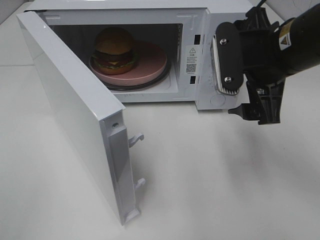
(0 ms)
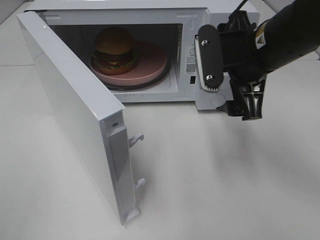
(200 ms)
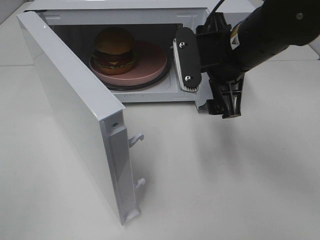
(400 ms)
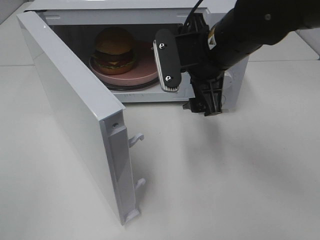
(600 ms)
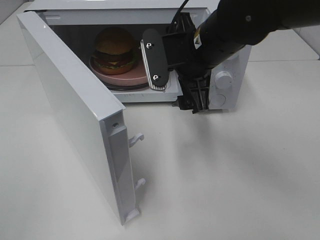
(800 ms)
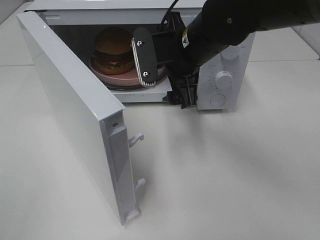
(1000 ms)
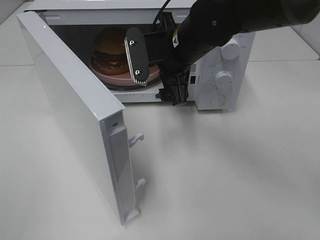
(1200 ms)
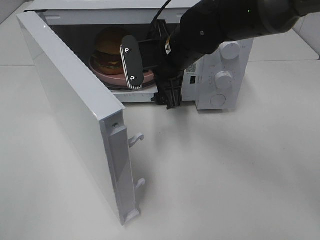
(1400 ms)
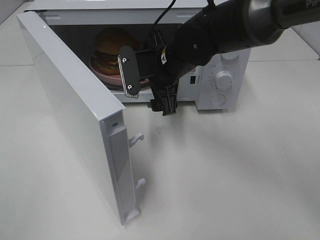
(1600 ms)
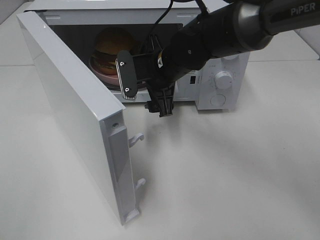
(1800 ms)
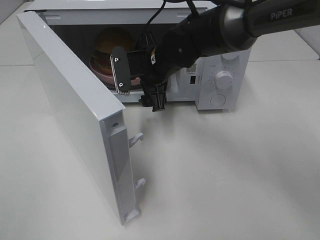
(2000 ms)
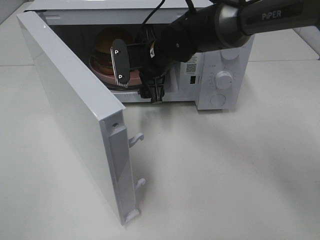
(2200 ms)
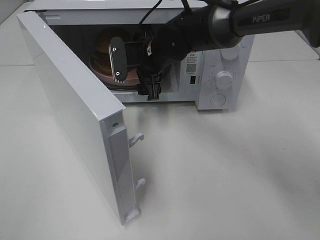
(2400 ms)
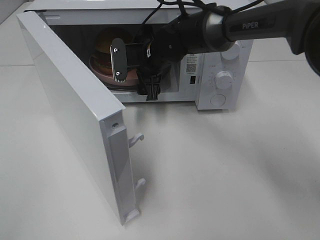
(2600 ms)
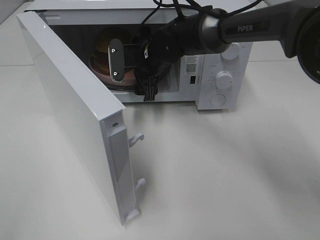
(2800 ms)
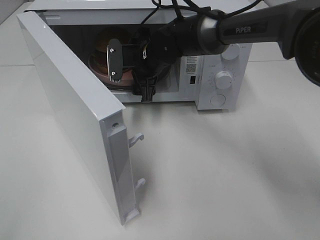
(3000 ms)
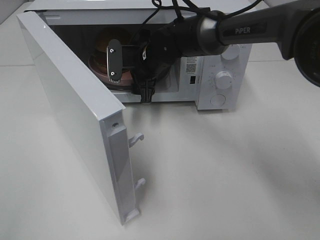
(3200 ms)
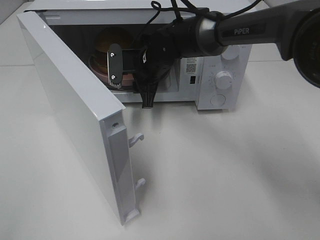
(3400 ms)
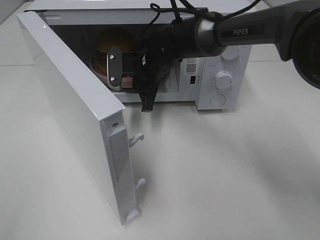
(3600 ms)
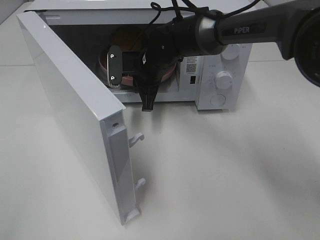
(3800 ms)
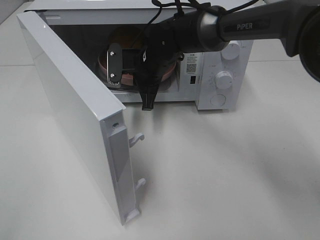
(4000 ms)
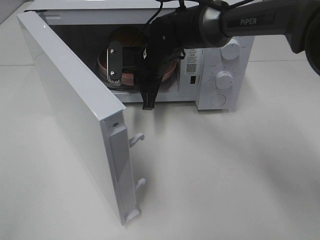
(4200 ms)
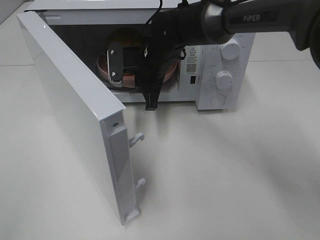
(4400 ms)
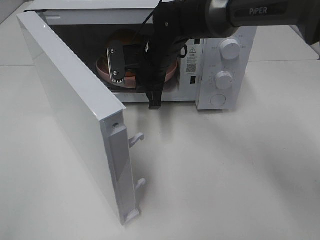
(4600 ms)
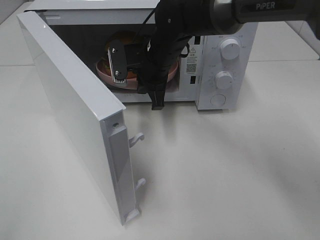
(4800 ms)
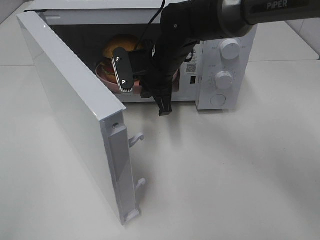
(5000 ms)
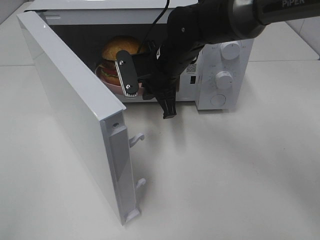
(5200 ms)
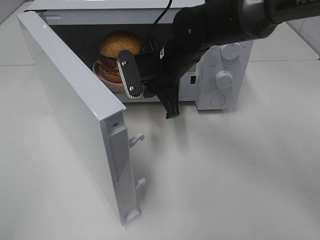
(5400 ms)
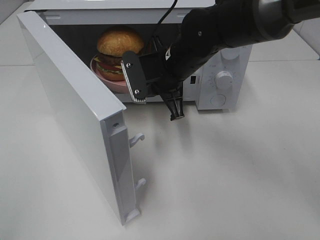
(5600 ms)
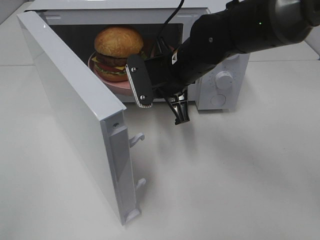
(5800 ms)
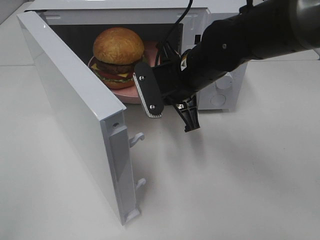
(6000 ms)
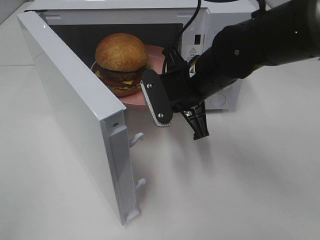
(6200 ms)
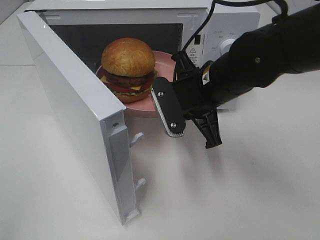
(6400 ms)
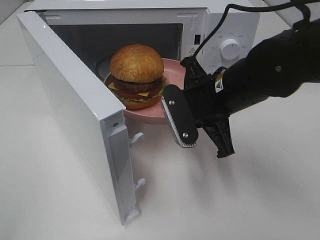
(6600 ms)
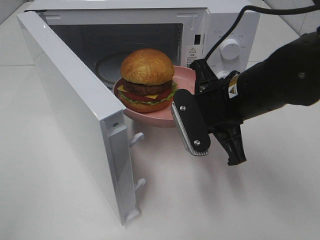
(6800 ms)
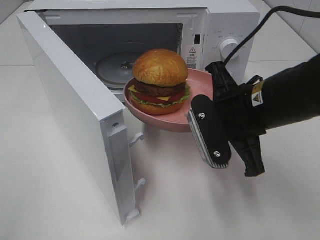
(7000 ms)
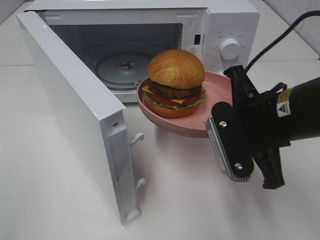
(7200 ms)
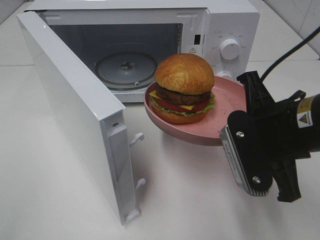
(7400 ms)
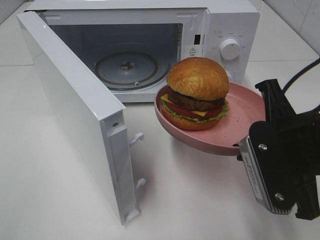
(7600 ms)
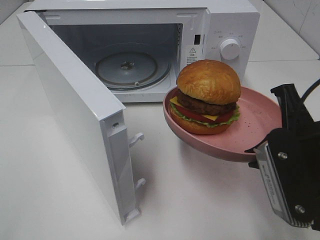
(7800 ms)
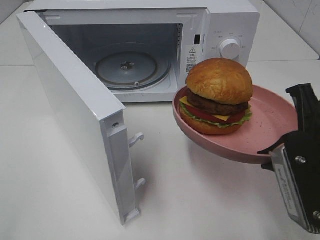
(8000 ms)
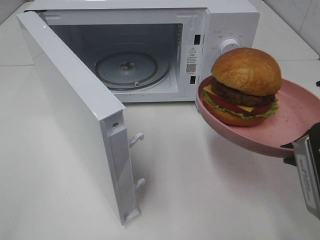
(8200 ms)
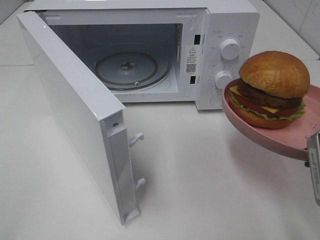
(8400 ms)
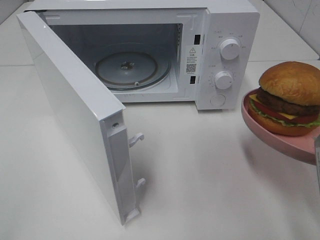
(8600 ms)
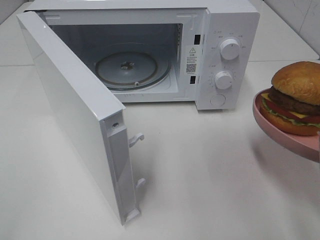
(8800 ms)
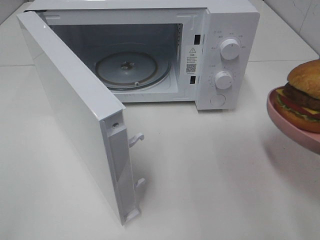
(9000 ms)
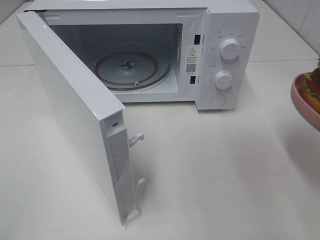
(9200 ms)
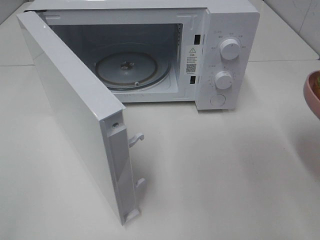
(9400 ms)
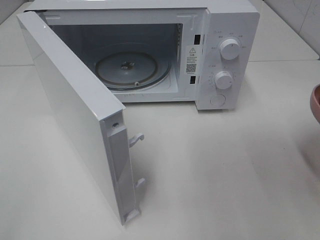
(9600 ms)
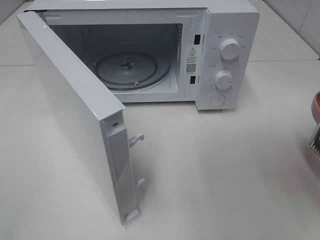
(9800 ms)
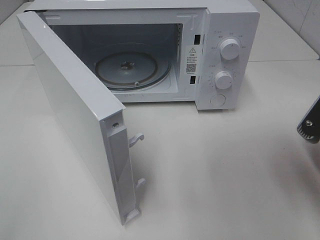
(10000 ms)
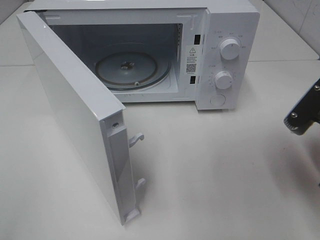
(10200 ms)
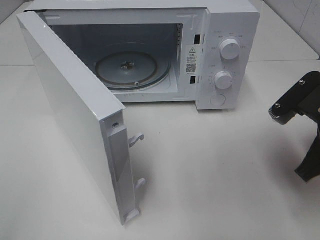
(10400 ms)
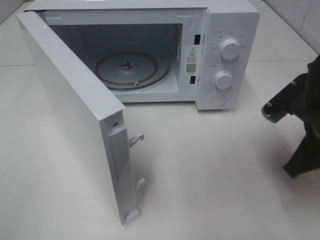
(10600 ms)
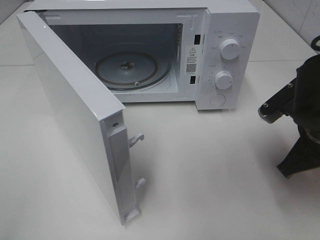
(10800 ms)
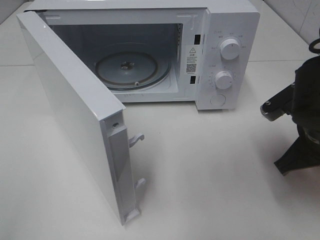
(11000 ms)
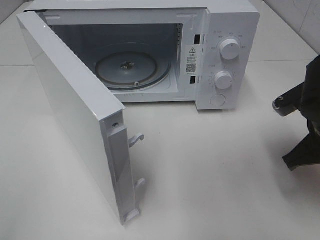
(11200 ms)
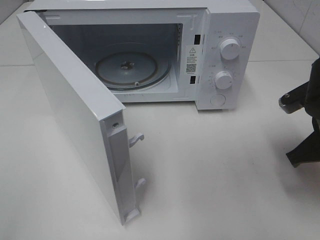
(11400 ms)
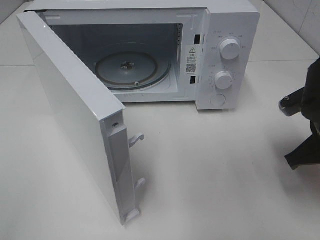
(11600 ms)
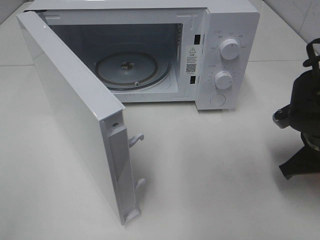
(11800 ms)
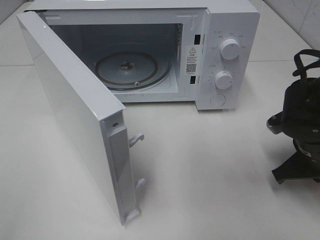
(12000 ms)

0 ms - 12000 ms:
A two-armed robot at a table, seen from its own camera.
Task of the whole recording: Heat the burger.
Step, 0 ms - 3800 ms: Right hand: grab the plate with the hamburger.
0 ms - 1600 ms: The right gripper moves to the left, forward and downward, roughly 20 cm.
1600 ms - 3000 ms: The right gripper is displaced forward by about 5 cm.
3000 ms - 4400 ms: The right gripper closes.
4400 ms - 6000 ms: The right gripper goes approximately 10 cm backward and to the right.
6000 ms - 7600 ms: The right gripper shifts some 20 cm backward and to the right.
7600 ms - 9000 ms: The right gripper heads to the right, covering some 5 cm.
9000 ms - 10400 ms: The right gripper goes approximately 10 cm forward.
10400 ms - 12000 ms: The right gripper is displaced downward by approximately 10 cm.

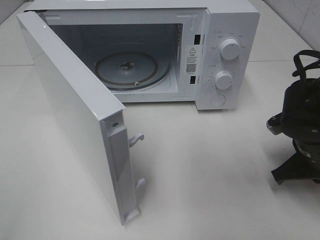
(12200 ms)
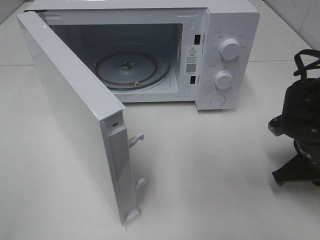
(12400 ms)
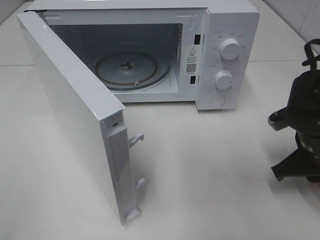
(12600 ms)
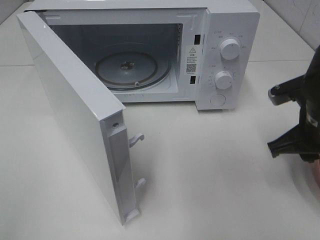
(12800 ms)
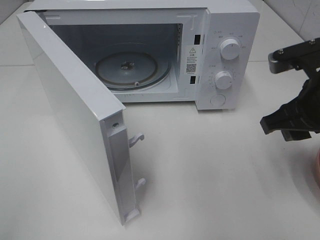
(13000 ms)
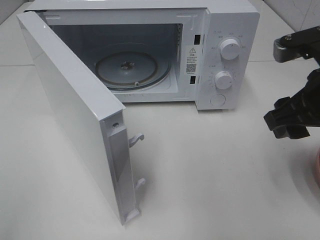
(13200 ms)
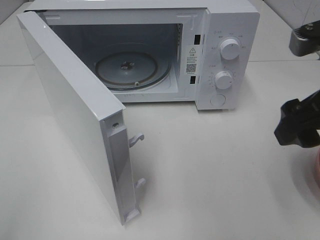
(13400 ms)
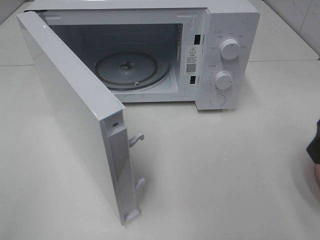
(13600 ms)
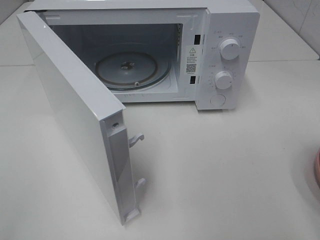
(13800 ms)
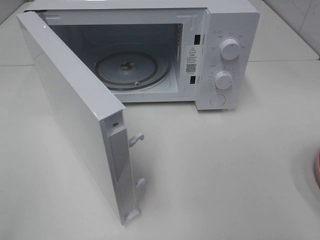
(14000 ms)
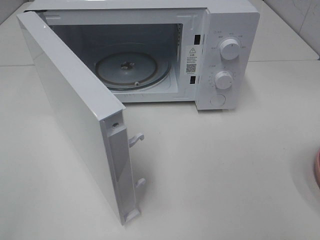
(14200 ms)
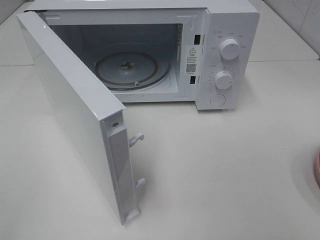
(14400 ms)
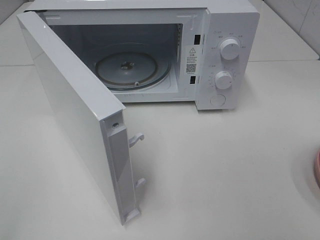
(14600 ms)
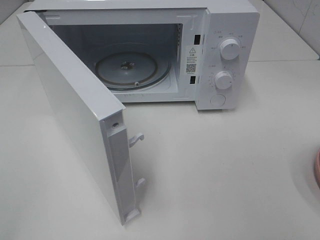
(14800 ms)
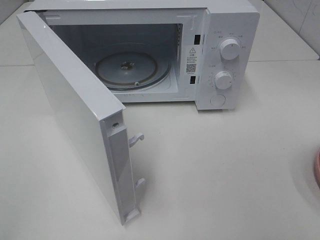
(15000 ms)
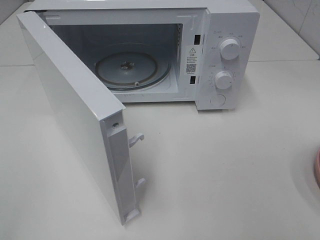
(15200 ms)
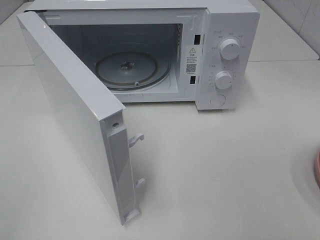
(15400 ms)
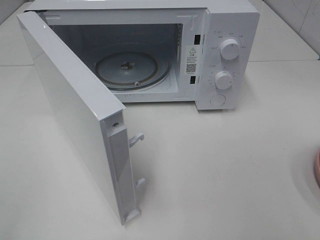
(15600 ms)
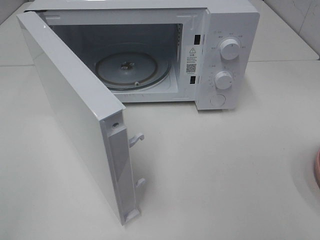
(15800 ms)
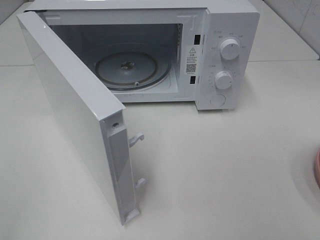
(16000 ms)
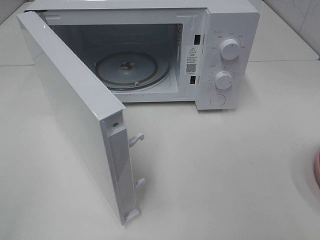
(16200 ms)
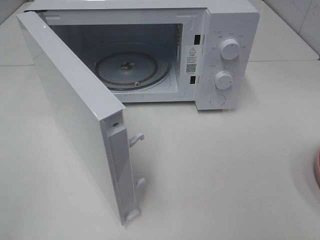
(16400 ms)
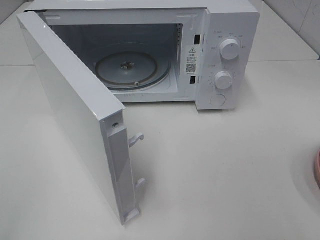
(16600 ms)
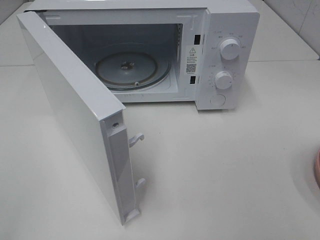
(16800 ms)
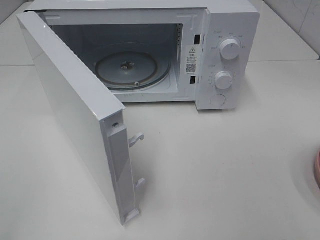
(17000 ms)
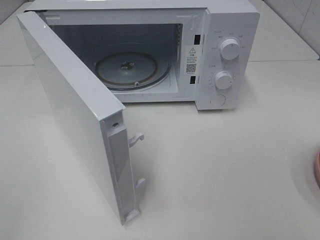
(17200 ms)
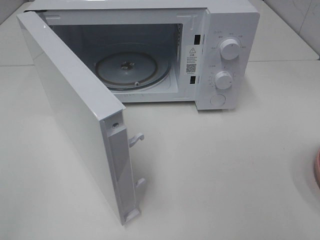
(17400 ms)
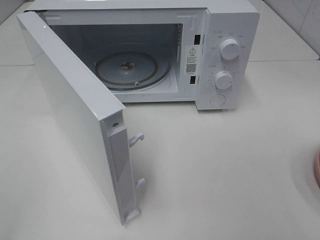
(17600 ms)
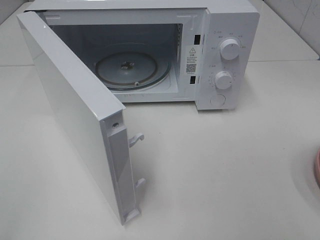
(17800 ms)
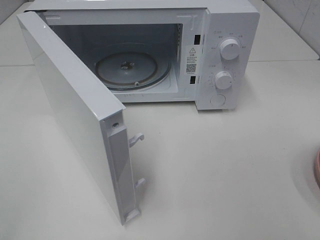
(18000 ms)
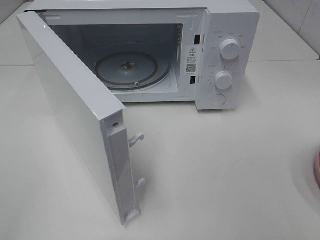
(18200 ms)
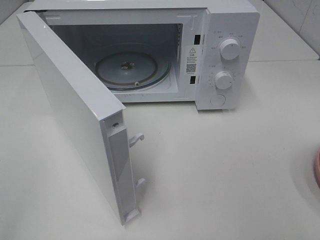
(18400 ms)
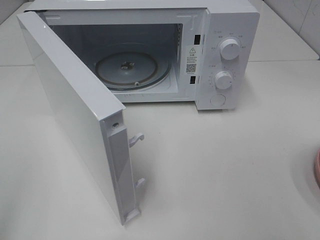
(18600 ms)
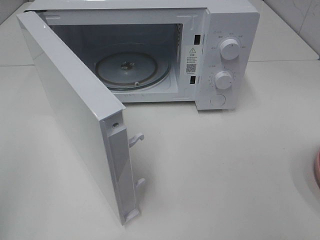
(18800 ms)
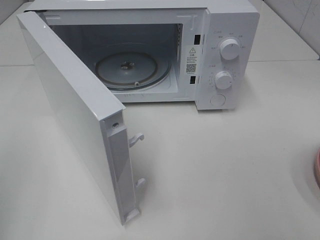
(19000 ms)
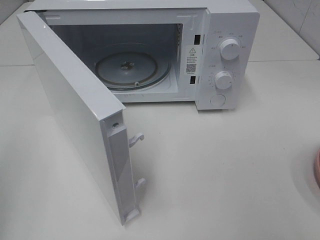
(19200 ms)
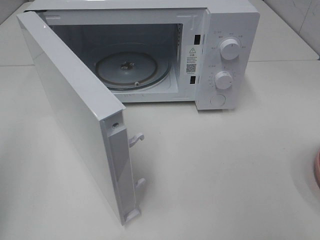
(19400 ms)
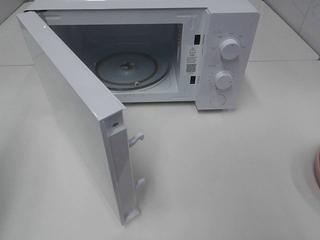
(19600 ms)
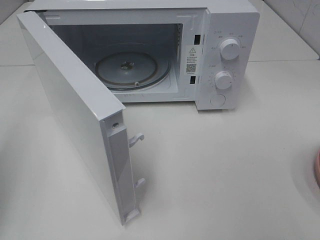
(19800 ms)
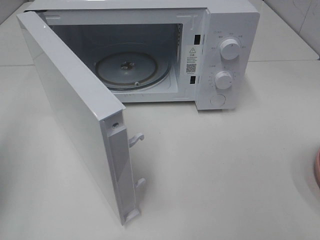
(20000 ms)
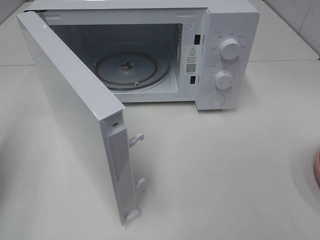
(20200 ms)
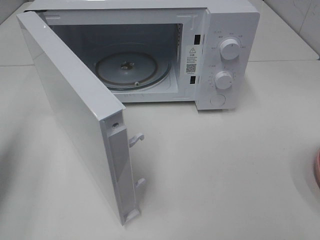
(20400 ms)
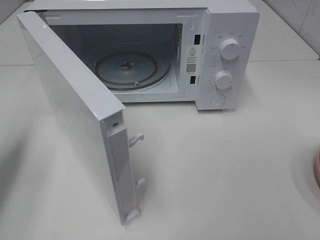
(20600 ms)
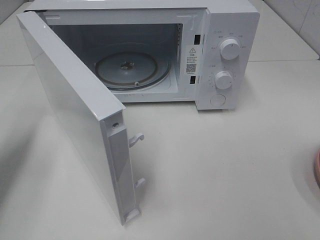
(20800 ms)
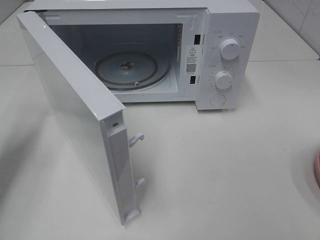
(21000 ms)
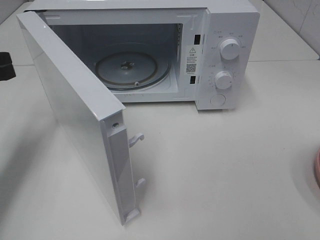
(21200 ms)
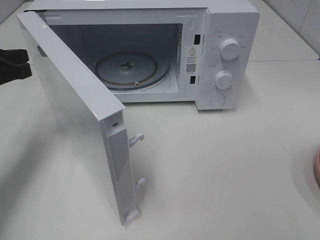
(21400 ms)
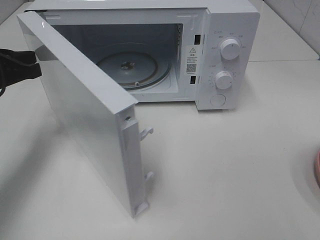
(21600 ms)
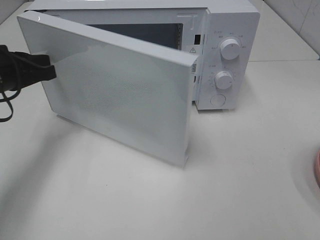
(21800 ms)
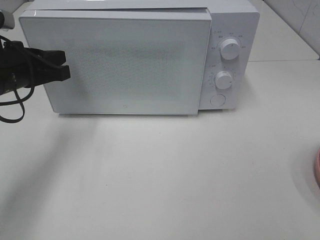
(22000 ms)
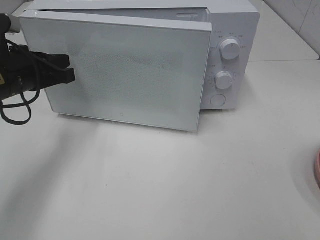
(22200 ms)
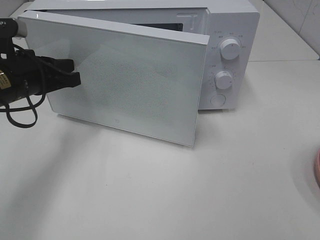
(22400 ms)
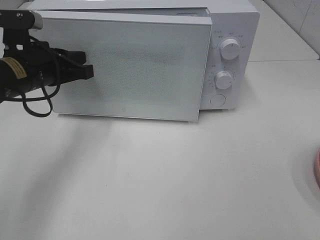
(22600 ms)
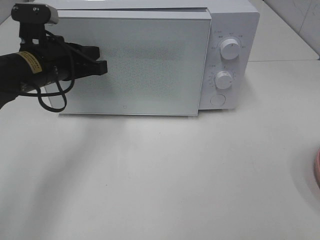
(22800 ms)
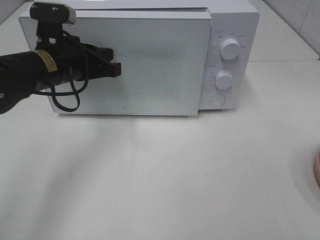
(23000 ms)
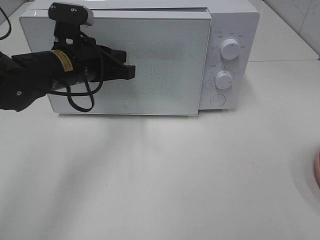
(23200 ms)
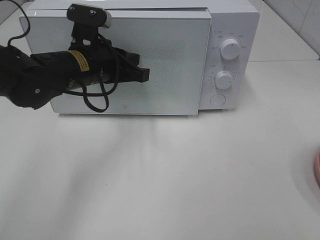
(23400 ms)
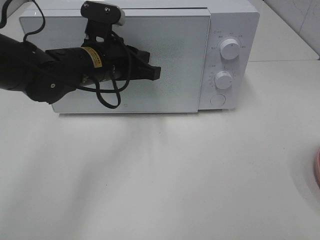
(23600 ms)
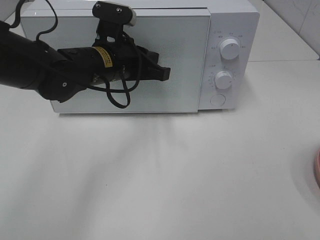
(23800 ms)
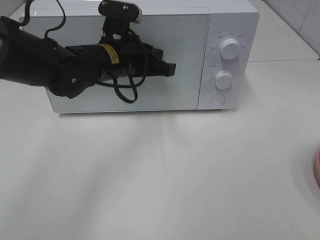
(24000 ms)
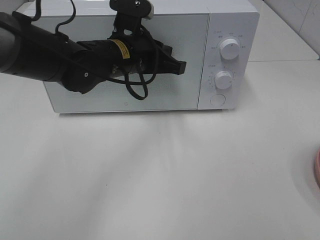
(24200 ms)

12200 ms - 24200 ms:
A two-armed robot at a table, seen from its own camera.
Task of the whole recording: Heat the burger.
12200 ms - 13800 ms: The right gripper is displaced upward and backward by approximately 20 cm, and opens up.
16600 ms - 18200 ms: Both grippers stay about where they are.
19800 ms - 21200 ms: The left gripper moves forward and downward, roughly 15 cm.
21200 ms - 22600 ms: The left gripper travels to the right by roughly 10 cm.
22600 ms - 24200 ms: The left gripper is displaced to the right by some 15 cm.
